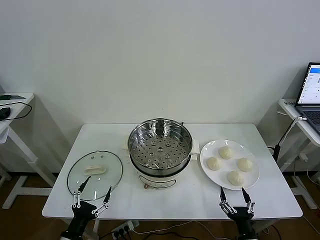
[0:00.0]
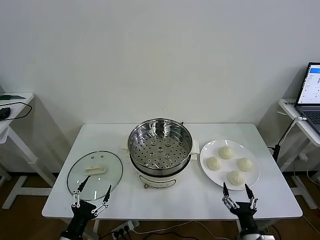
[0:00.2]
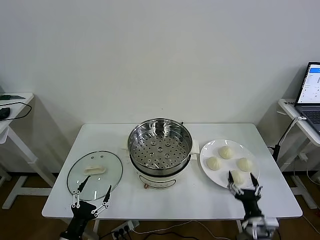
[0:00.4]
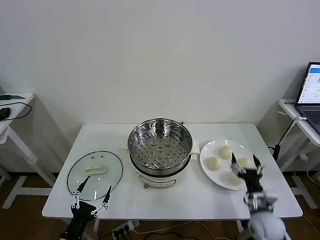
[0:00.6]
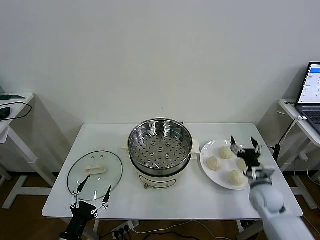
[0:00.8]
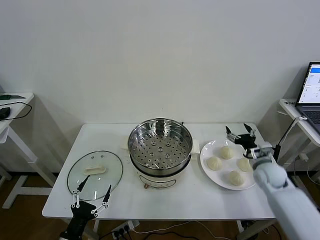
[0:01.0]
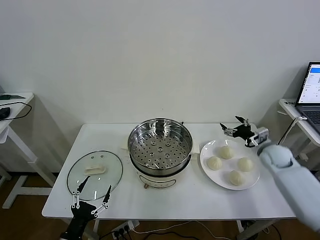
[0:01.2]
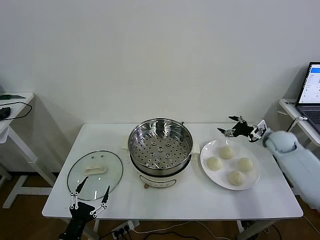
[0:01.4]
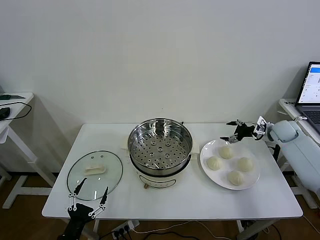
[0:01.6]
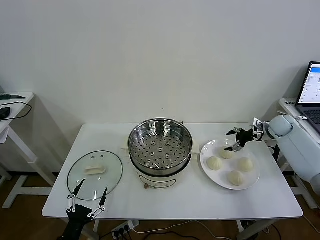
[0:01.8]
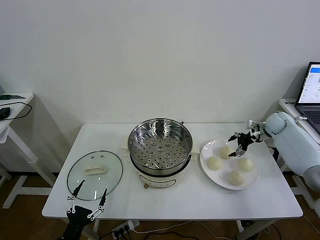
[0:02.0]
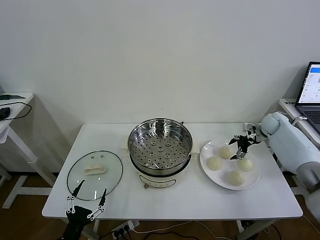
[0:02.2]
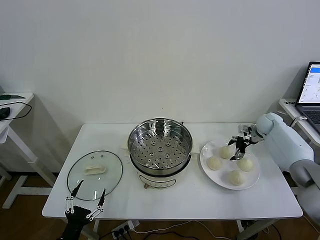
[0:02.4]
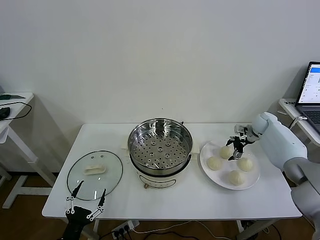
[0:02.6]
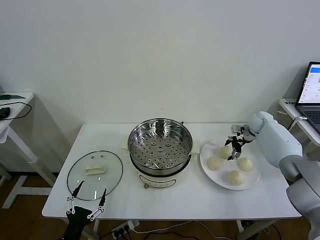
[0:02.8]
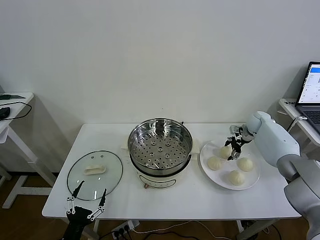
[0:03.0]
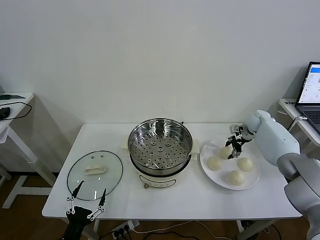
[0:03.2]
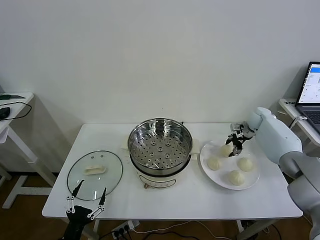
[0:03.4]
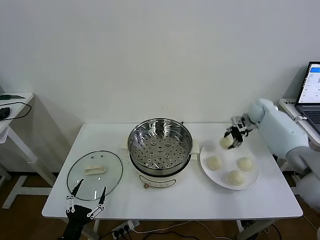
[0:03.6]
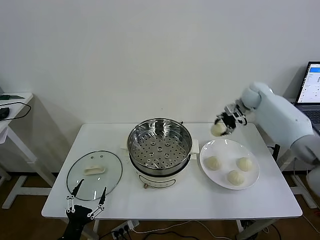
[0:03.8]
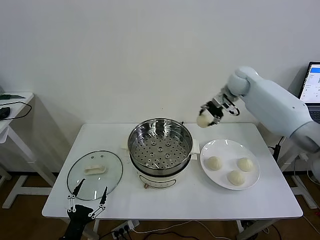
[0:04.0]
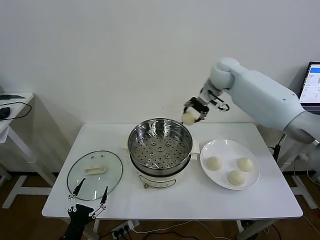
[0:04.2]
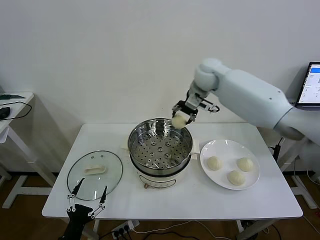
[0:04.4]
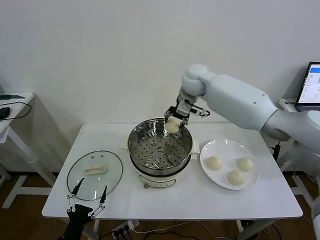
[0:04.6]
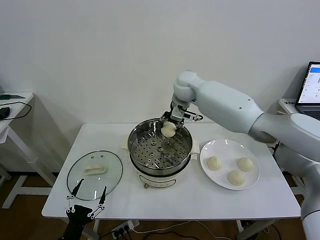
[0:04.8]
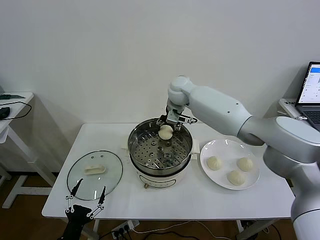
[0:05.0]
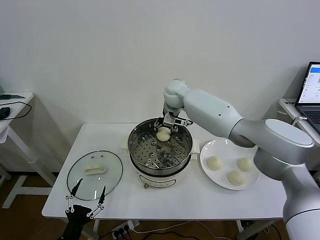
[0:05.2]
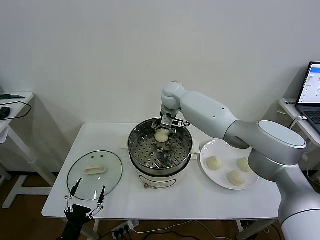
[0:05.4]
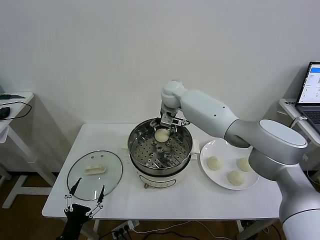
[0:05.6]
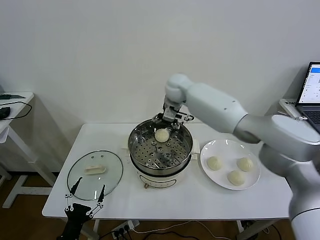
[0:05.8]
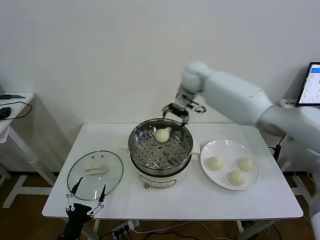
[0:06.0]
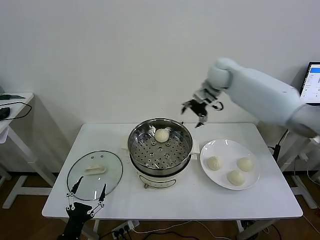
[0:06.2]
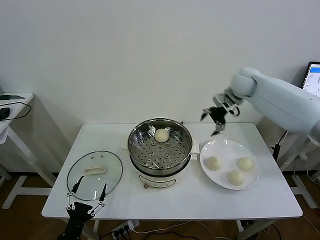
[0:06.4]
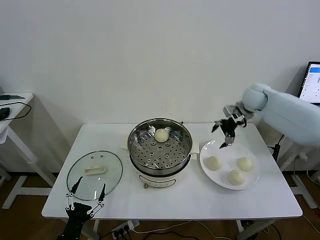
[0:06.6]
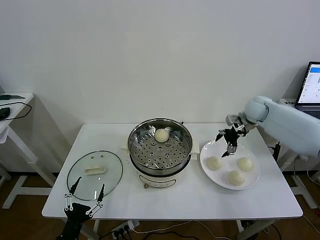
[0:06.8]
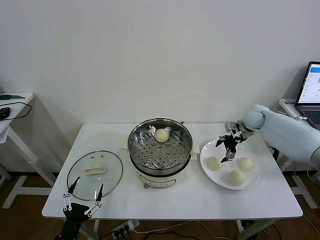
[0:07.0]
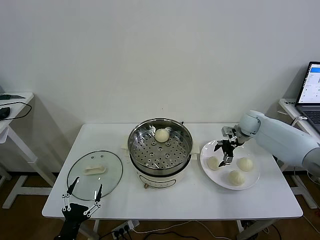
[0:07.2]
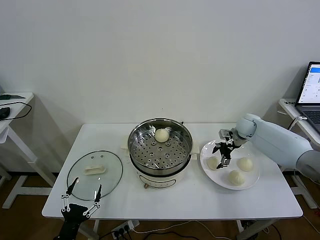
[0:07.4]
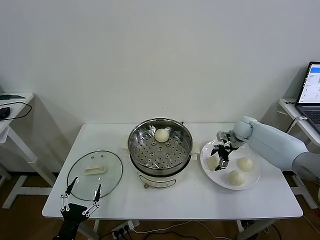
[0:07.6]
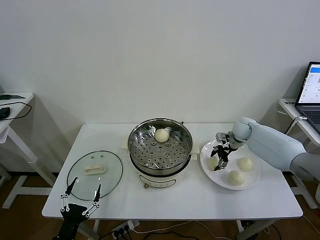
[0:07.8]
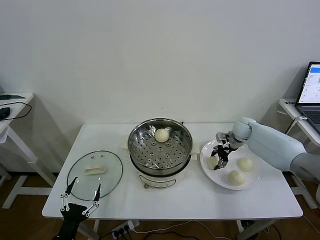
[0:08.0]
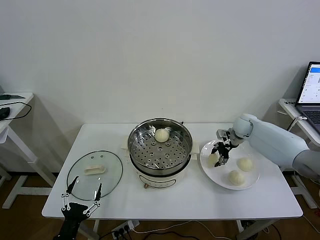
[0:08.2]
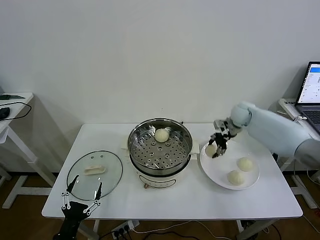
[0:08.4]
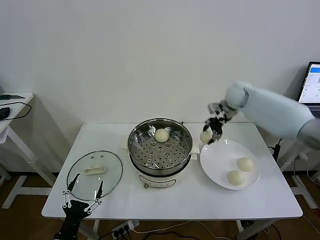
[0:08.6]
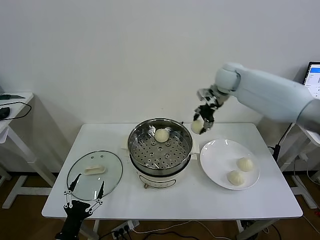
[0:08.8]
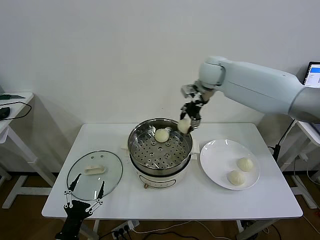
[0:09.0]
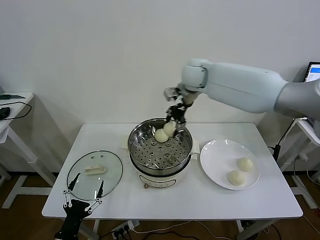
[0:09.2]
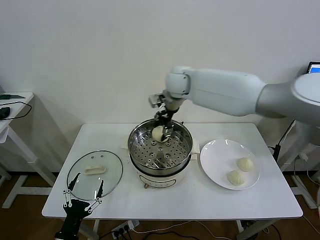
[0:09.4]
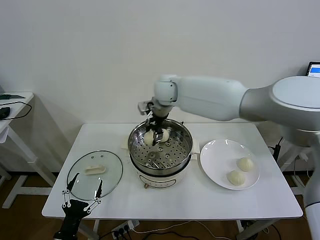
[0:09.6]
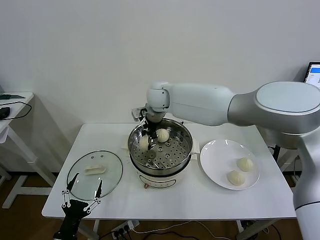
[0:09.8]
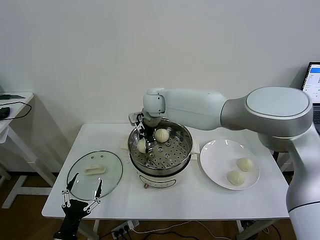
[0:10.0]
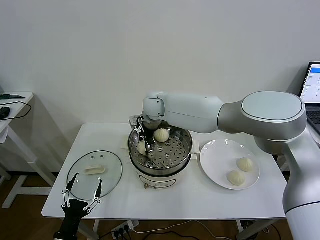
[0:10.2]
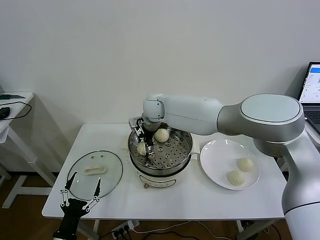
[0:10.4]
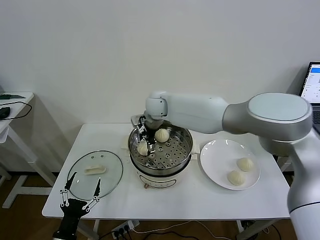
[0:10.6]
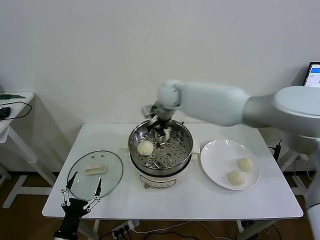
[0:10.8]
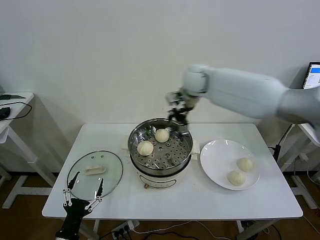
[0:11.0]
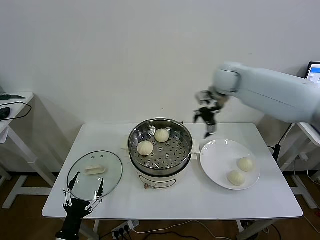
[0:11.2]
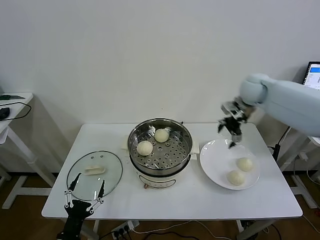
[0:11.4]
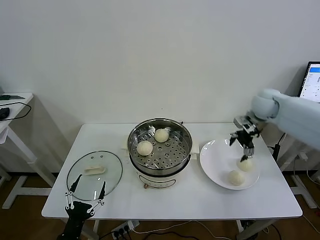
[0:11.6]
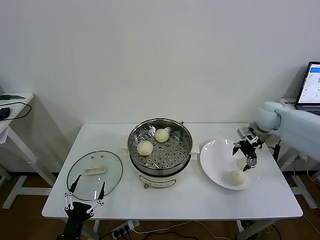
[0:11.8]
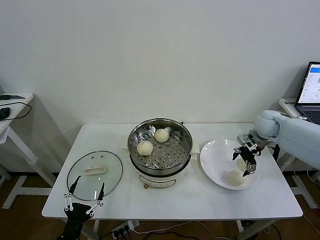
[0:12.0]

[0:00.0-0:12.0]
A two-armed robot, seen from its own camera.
Task of the whole recording: take steamed baozi put them in steamer then cover it.
Step, 0.0 to 3.0 s: Grasp the baozi in the plate with right gripper.
Step, 3.2 to 5.4 s: Place the baozi on the steamer with right gripper.
Step, 5.6 to 7.8 s: Grasp the baozi in the plate with right gripper.
Step, 8.2 to 10.6 s: Place the baozi on the steamer with right gripper.
1.6 to 3.0 s: The right gripper goes roughly 10 cm forward and to the left, and closes its fingers.
3.0 to 4.4 s: The right gripper moves to the left and upward, approximately 35 cm.
4.4 to 6.0 s: The right gripper travels to the left and back again, some 10 cm each way, and opens.
6.0 to 7.6 s: The right gripper moves downward and to the right, approximately 30 cm.
7.6 to 9.0 s: The right gripper moves upward and to the left, approximately 30 cm, and closes up.
9.0 to 10.4 s: The right gripper shifts roughly 20 cm to the left and downward, and opens.
10.4 to 12.0 s: The right gripper is displaced to the right by about 40 cm.

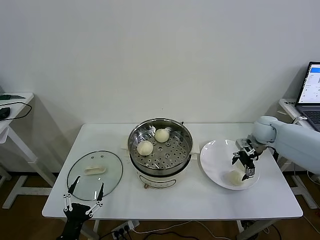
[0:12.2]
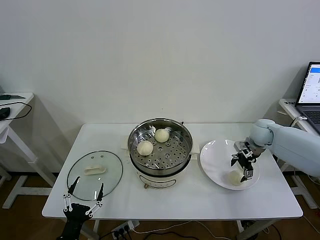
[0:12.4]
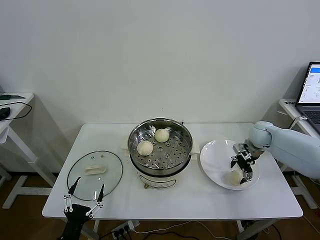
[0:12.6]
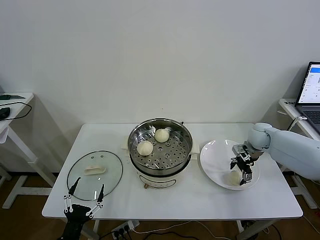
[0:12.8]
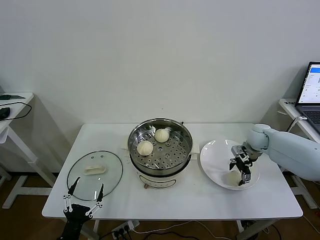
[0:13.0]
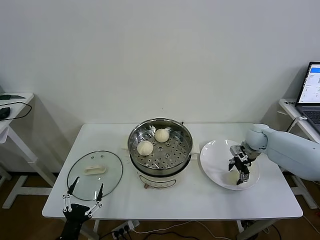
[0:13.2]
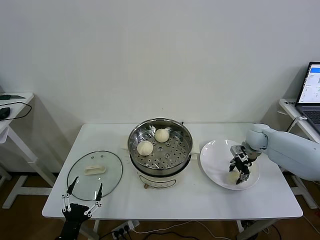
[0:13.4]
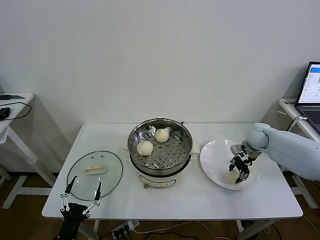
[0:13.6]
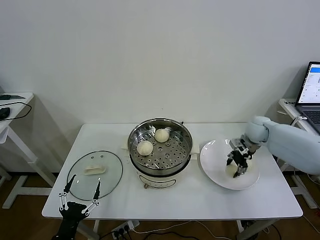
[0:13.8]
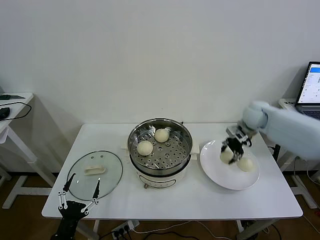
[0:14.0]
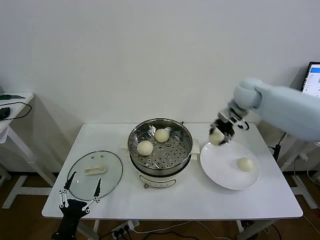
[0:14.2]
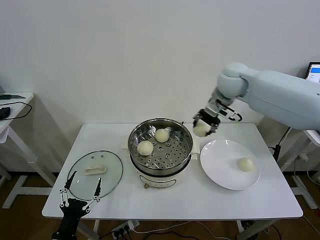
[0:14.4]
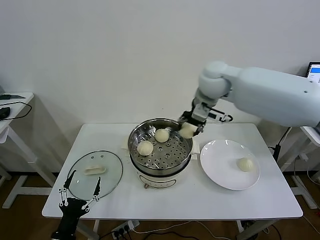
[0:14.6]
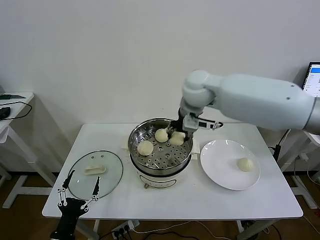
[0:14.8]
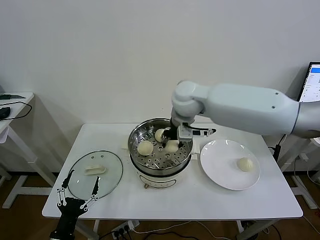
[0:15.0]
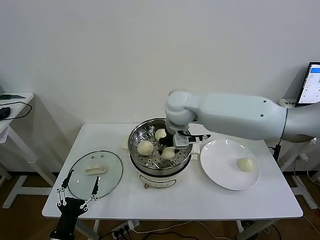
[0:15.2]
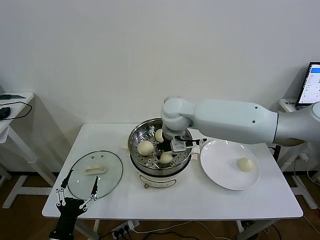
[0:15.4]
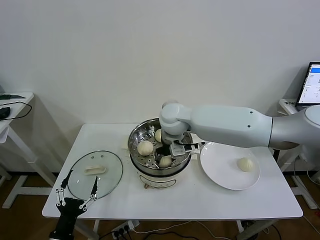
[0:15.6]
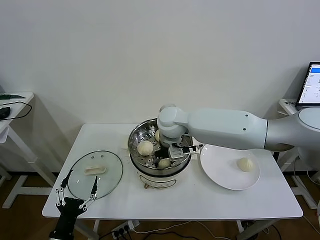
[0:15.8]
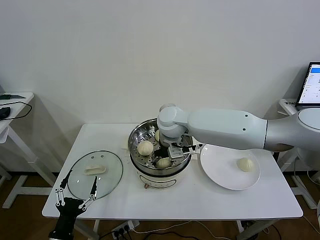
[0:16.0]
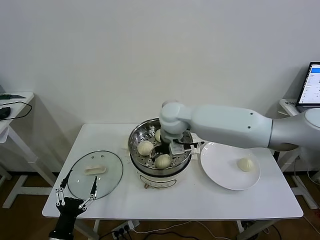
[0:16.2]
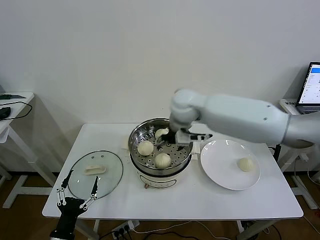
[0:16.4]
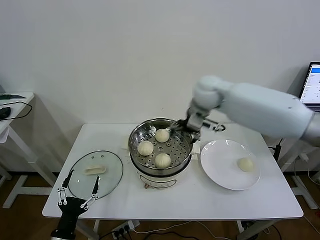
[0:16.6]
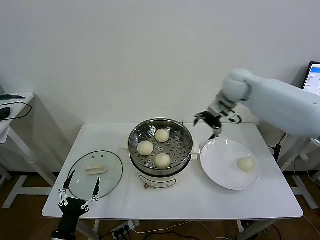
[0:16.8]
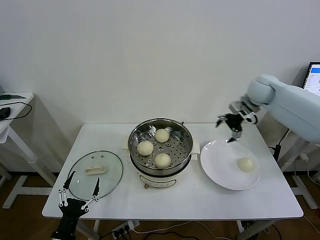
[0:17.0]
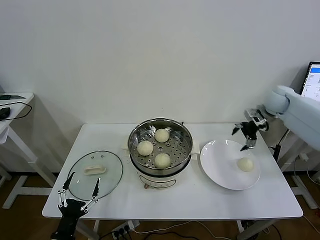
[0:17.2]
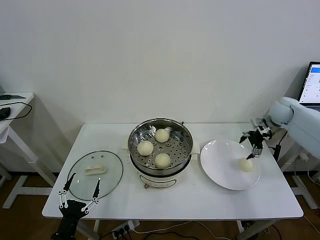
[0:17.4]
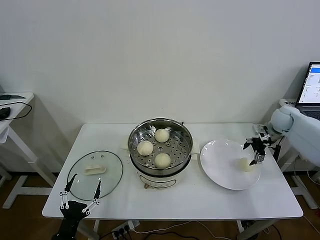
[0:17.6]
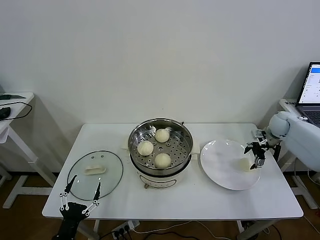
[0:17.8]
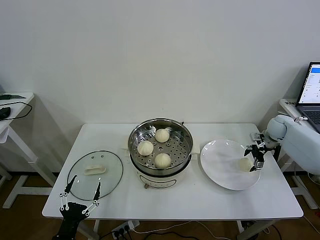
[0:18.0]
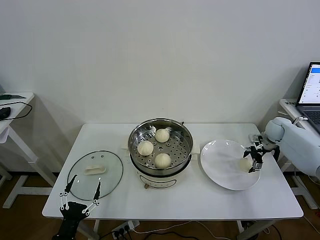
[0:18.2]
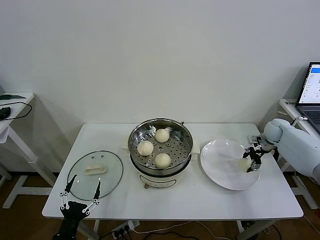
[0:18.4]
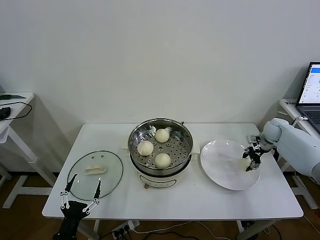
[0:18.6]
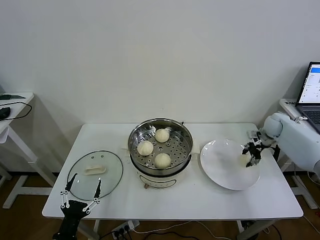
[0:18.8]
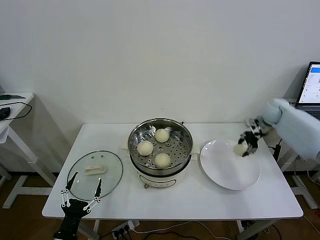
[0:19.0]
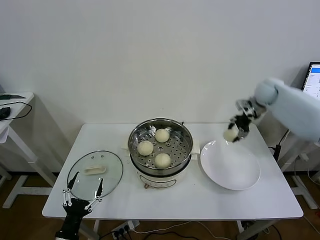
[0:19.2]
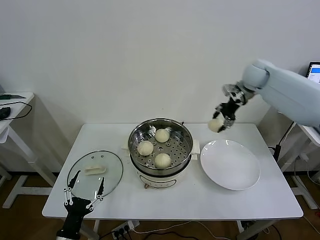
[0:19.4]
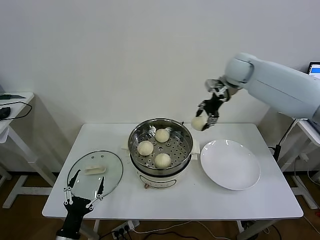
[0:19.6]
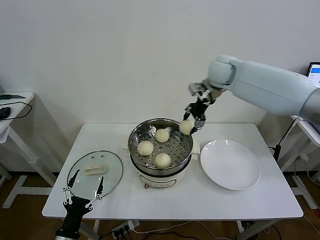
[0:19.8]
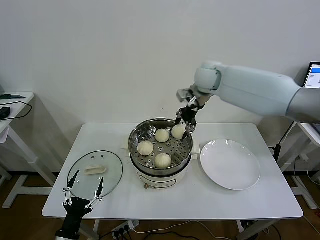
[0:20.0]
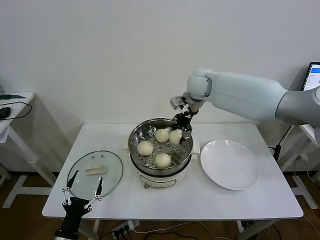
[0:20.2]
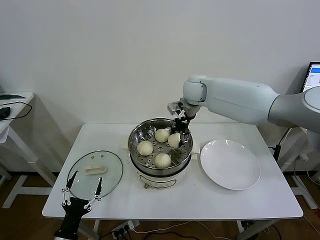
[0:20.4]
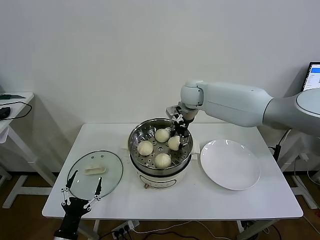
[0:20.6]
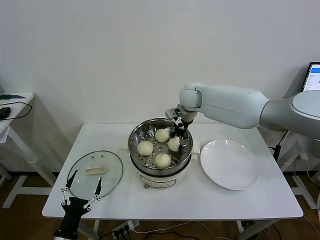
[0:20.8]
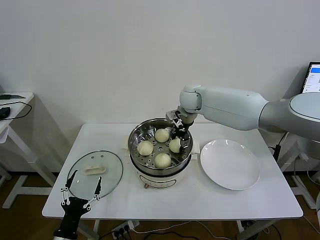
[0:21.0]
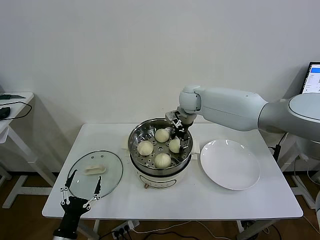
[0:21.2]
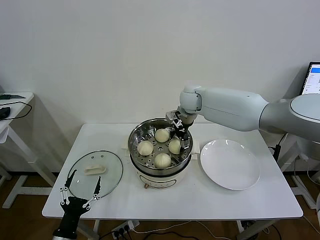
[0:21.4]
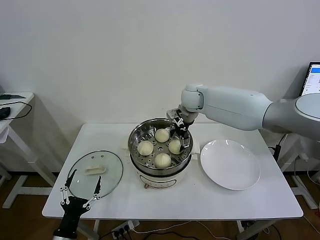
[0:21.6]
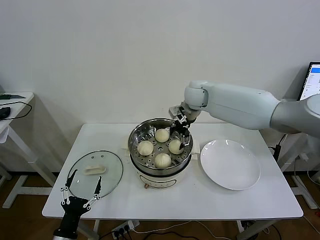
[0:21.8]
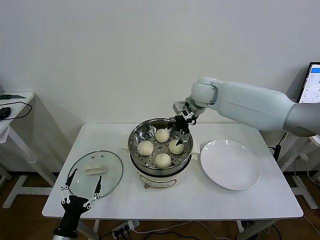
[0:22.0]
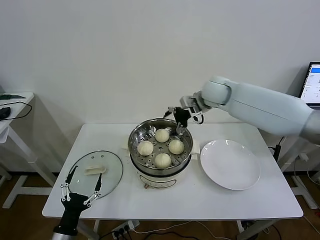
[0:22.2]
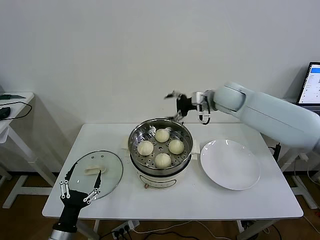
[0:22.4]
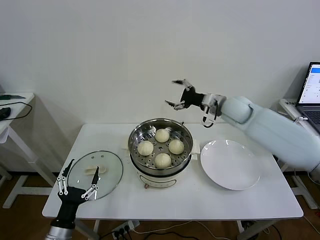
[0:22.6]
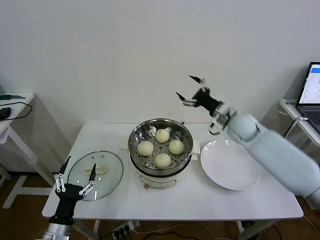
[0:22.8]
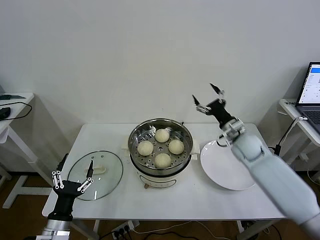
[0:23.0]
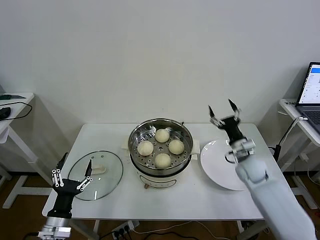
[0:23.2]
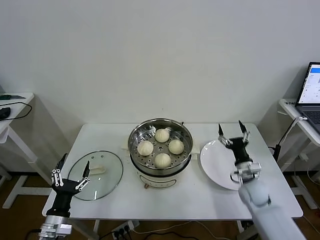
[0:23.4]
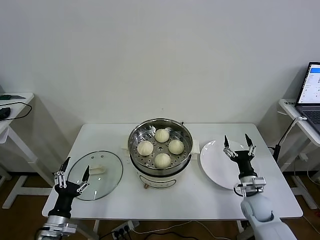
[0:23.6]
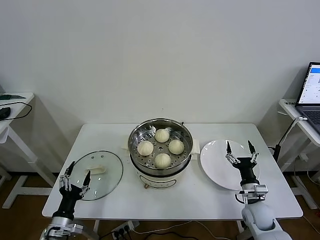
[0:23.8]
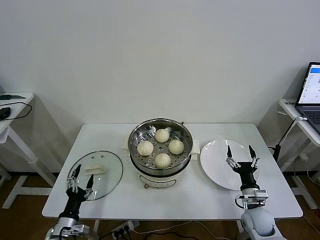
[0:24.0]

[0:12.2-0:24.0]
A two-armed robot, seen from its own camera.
Task of the whole recording: take steamed baozi put them in steamer then cover it.
Step, 13.6 to 16.2 s: Place the baozi on the steamer with right gripper.
Step, 16.4 to 18.6 s: Grasp the baozi in the plate with right gripper.
Step, 18.8 to 21.6 s: Place the baozi on the steamer with right gripper.
12.2 to 13.6 s: The right gripper closes up.
13.6 to 15.2 s: The right gripper moves to the left and upward, about 35 cm.
15.2 to 16.6 s: The right gripper goes approximately 15 cm to the right and forward, and opens up.
16.6 to 18.2 s: The right gripper heads to the right and downward, covering about 35 cm.
18.2 to 19.6 s: The right gripper is displaced upward and to the left by about 35 cm, and closes its fingers.
19.6 to 21.0 s: The right gripper goes roughly 15 cm to the left and downward.
21.0 to 22.6 s: The right gripper is displaced to the right and backward by roughly 15 cm, and opens its fingers.
22.6 to 24.0 s: The right gripper is displaced downward and backward by some 40 cm. Meanwhile the left gripper travels downward by about 5 cm.
